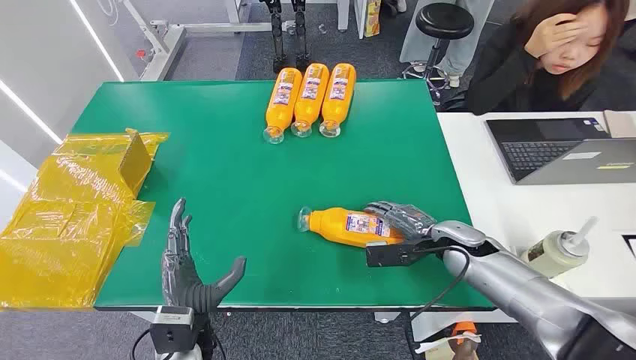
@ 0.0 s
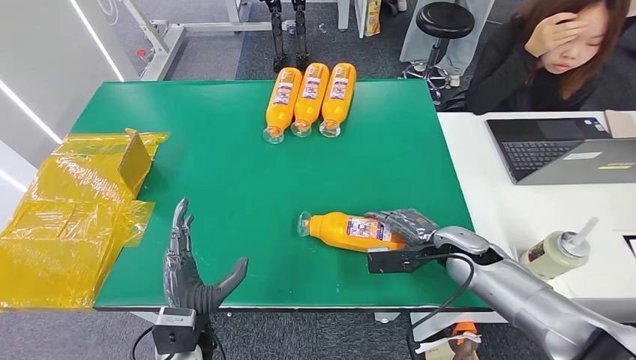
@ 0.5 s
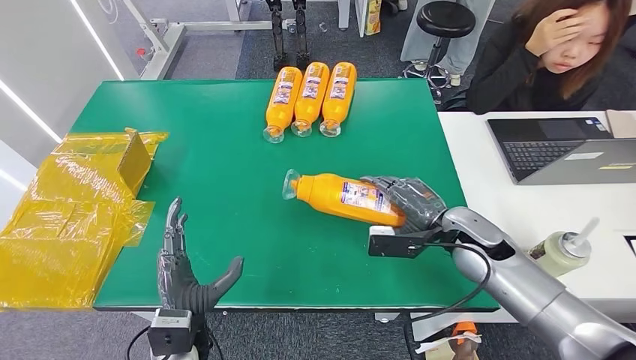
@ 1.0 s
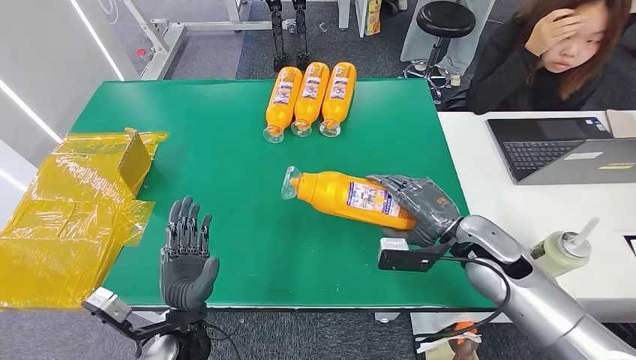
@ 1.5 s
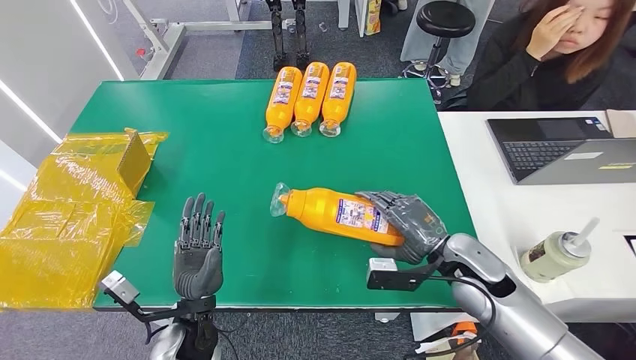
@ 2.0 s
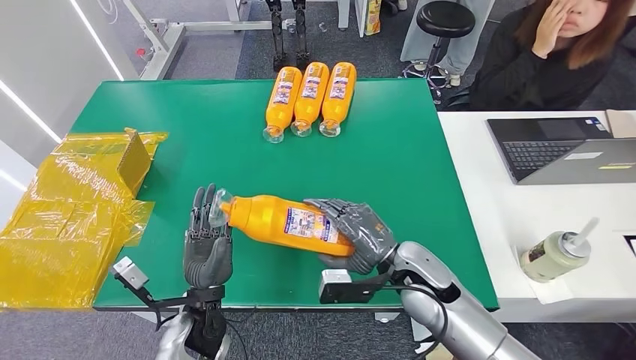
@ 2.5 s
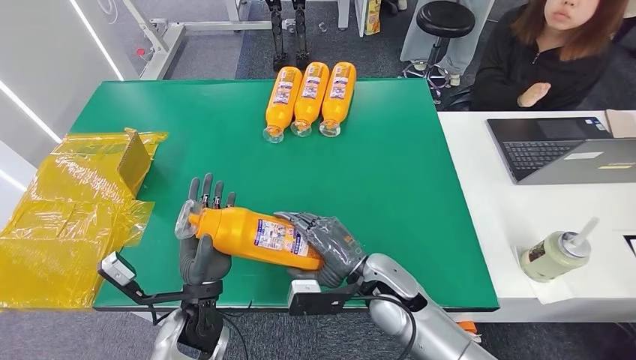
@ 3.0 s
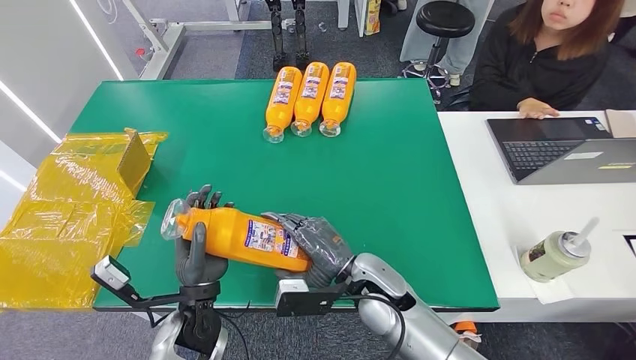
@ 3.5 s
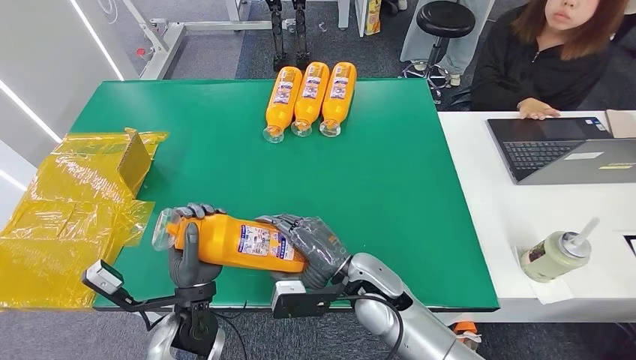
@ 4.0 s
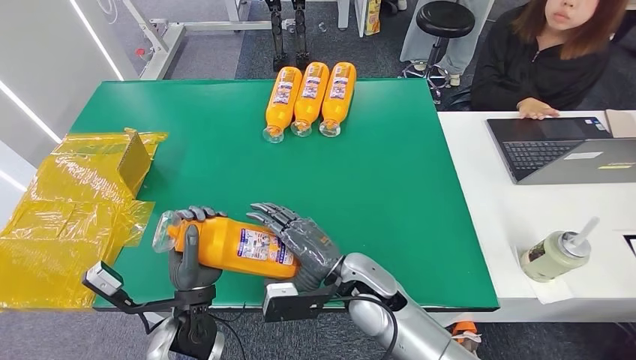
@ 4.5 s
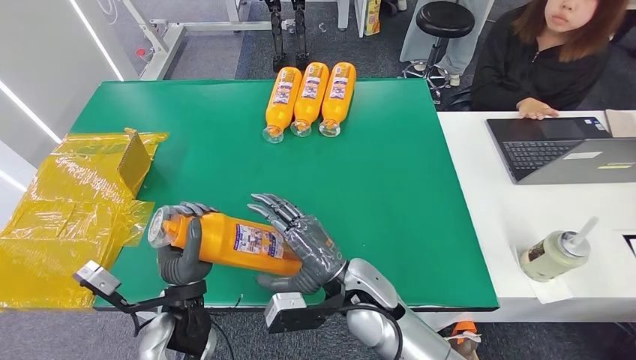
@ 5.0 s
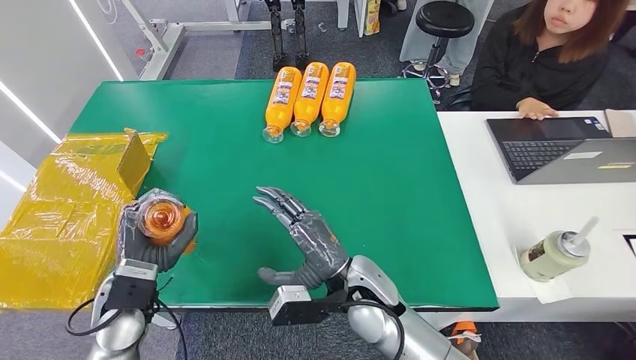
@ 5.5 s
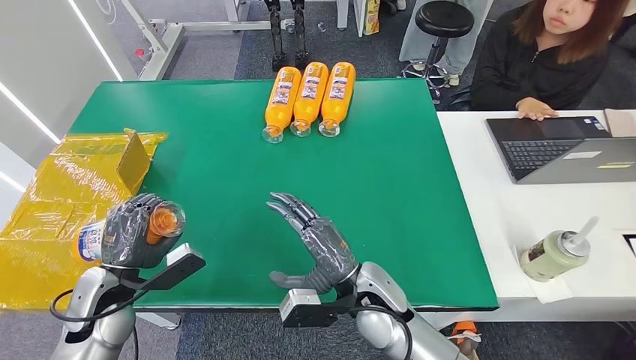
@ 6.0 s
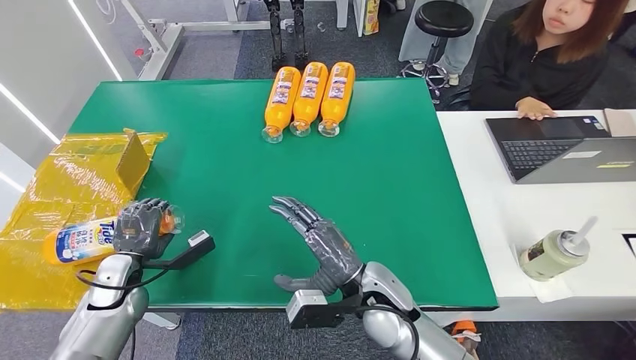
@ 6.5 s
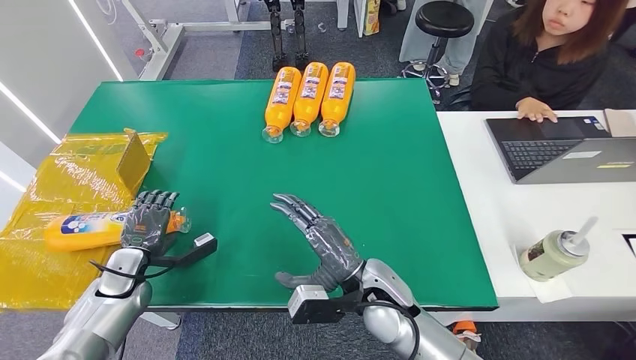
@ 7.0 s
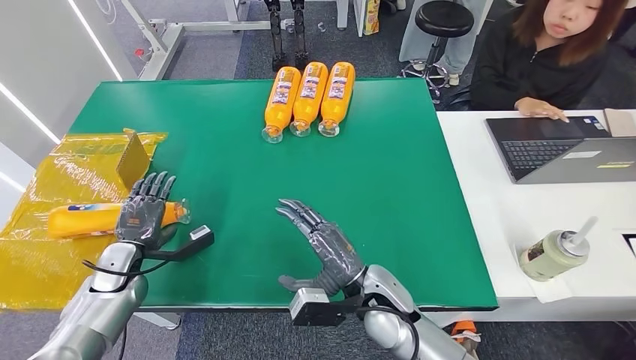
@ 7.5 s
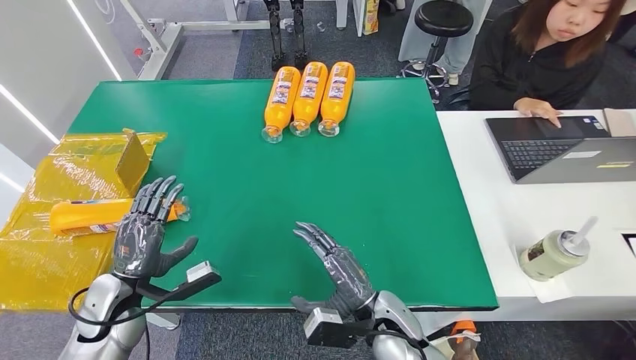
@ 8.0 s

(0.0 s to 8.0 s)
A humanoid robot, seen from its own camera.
Step, 0.0 s - 3.0 s: Pick up the bottle from the table.
Step, 3.5 s - 8.0 s: Turn the bottle to the front side.
2.0 s - 4.0 s: The right hand heads to the left, covering about 20 cm.
4.0 s - 6.0 s: The left hand heads to the left, covering approximately 20 cm.
6.0 s - 8.0 s: The right hand goes roughly 5 cm downward.

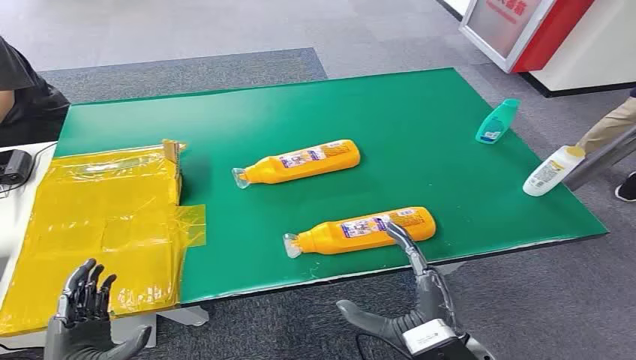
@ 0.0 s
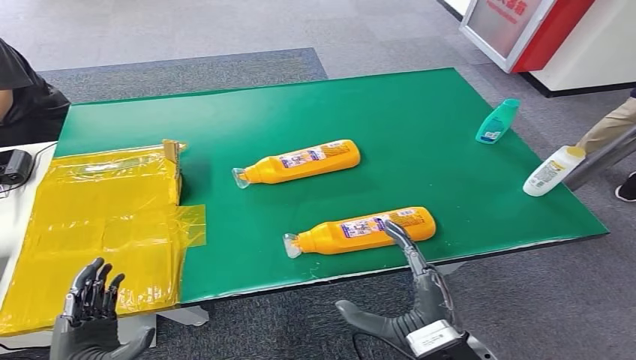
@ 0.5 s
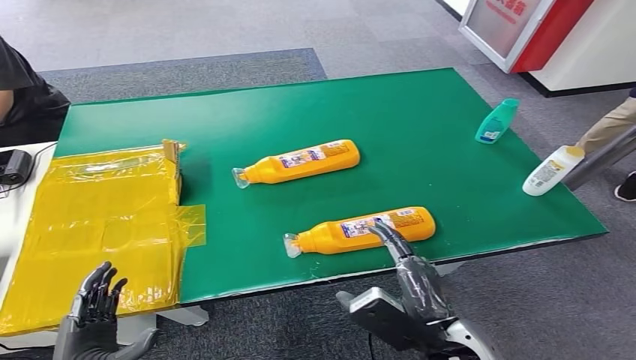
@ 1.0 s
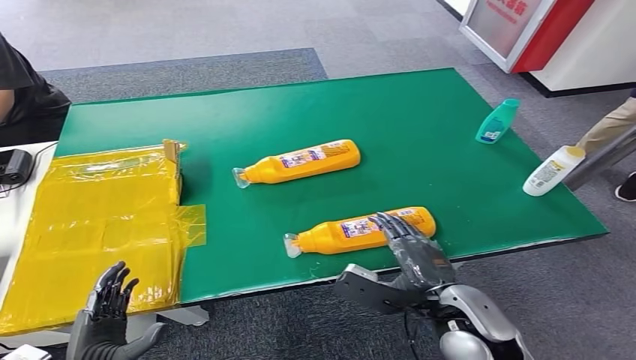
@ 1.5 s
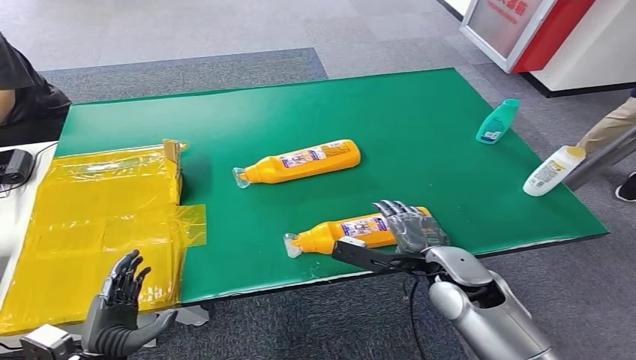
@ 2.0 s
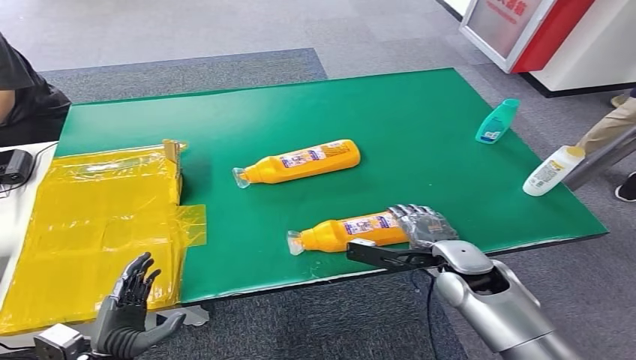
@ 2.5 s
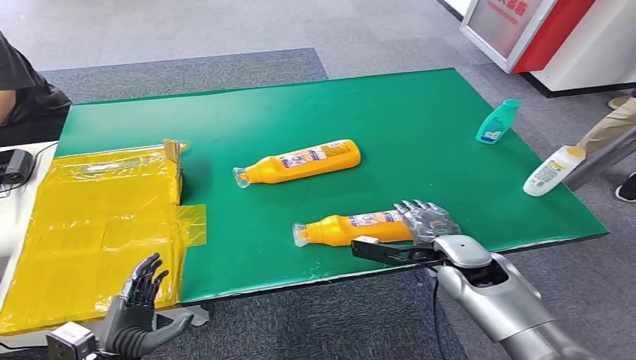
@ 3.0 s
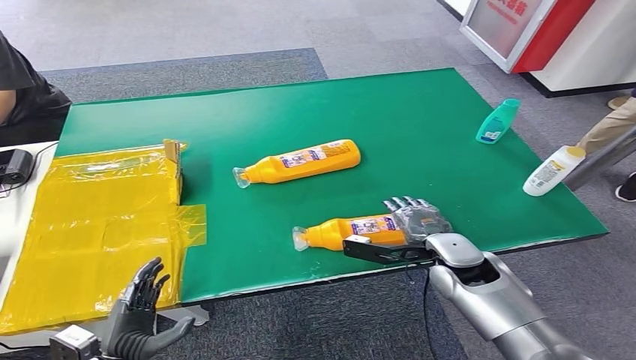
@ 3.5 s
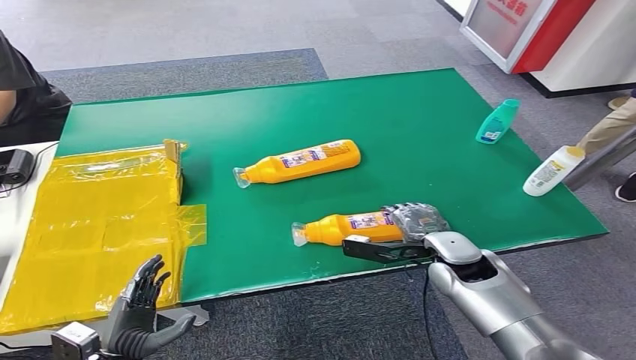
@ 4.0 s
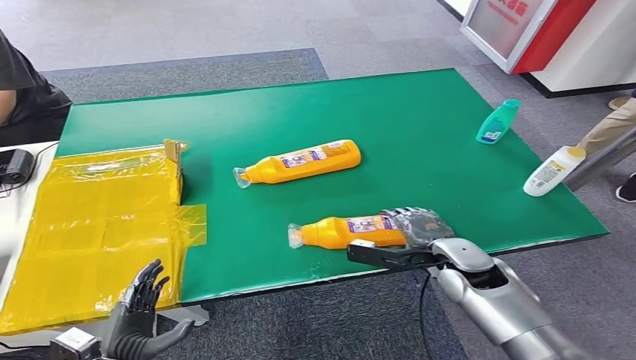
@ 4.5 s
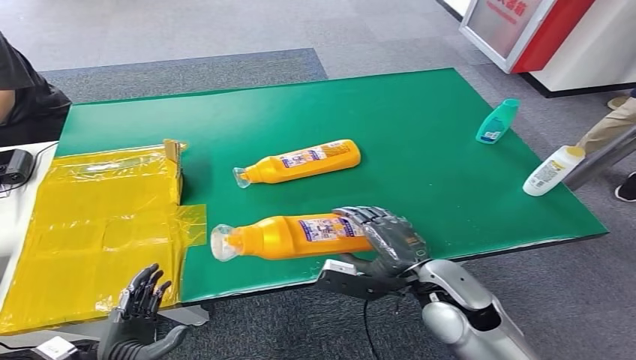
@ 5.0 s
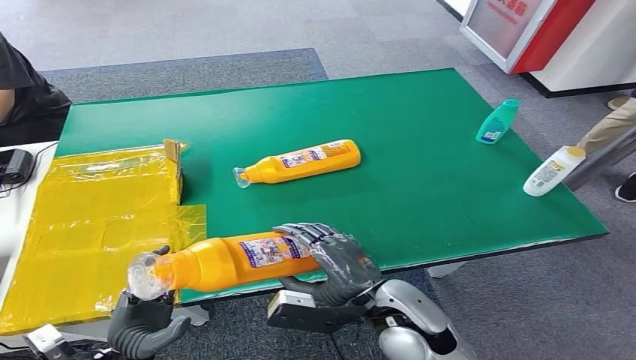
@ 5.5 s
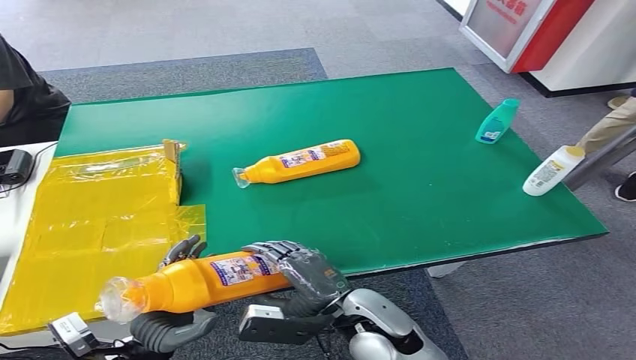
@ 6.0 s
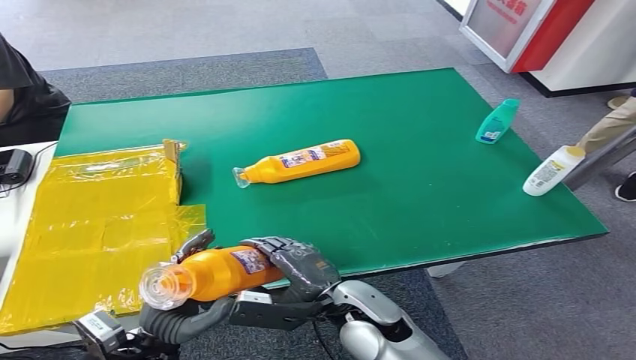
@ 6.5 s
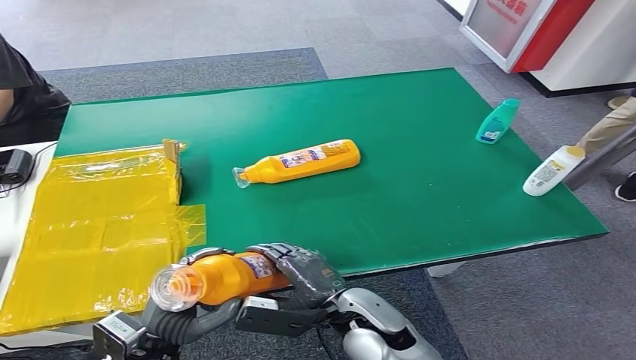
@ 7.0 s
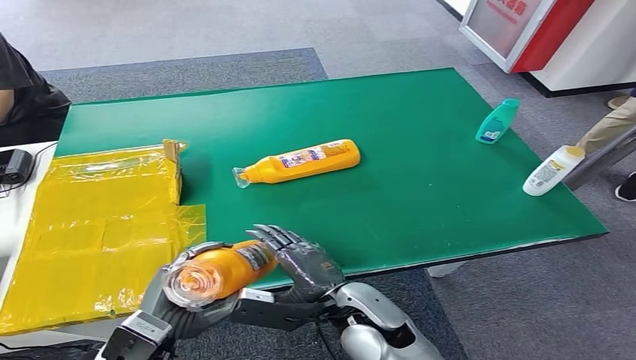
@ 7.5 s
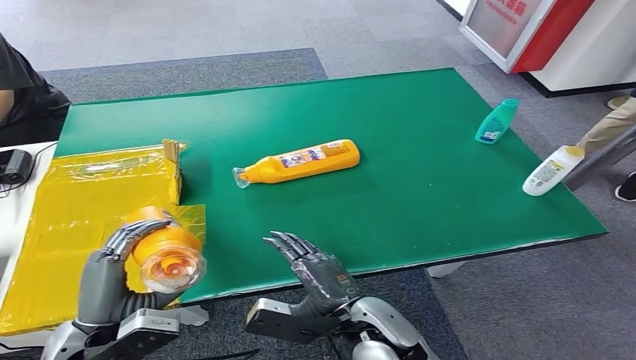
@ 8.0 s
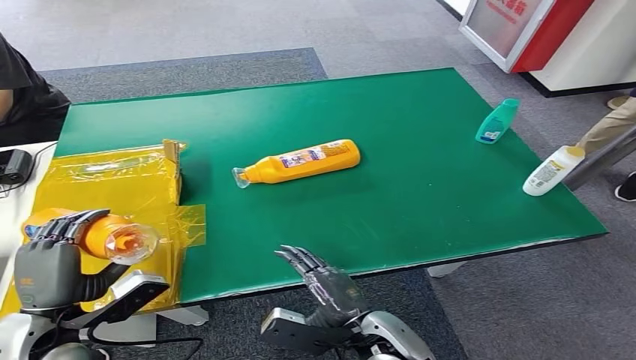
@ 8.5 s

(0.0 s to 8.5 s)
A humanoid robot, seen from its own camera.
Step, 0.0 s - 5.5 s: Pick up the bottle from the table.
Step, 6.0 s - 8.5 s: Turn the bottle to the front side.
2.0 s - 4.0 s: The right hand moves some 5 cm.
4.0 s - 6.5 s: The left hand shifts approximately 10 cm to the right and upward. The right hand shifts roughly 20 cm to the left and backward.
6.5 s - 8.5 s: The right hand goes approximately 5 cm backward, while the left hand travels to the left and upward by roughly 10 cm.
